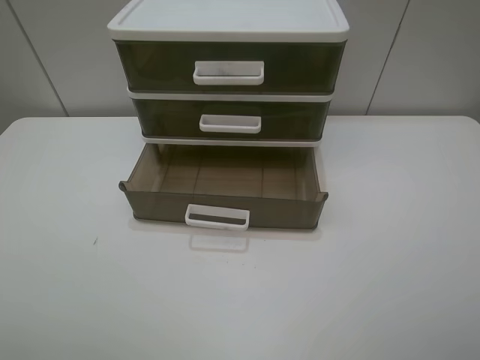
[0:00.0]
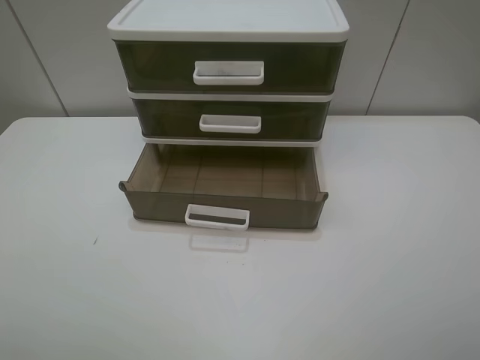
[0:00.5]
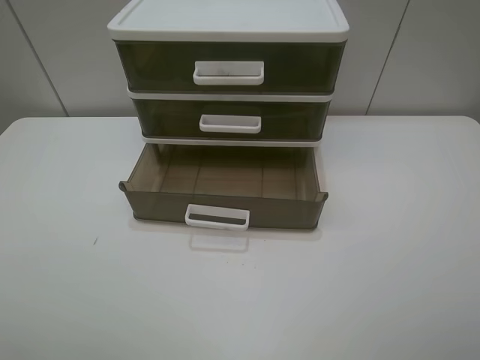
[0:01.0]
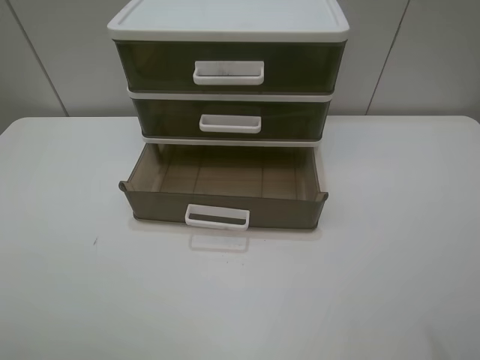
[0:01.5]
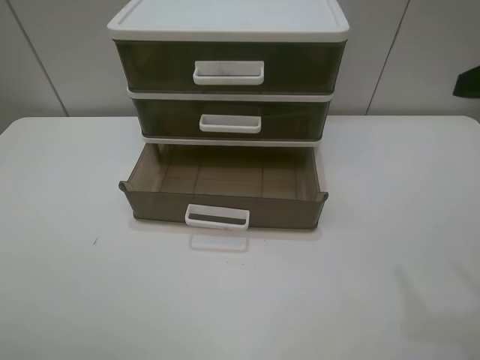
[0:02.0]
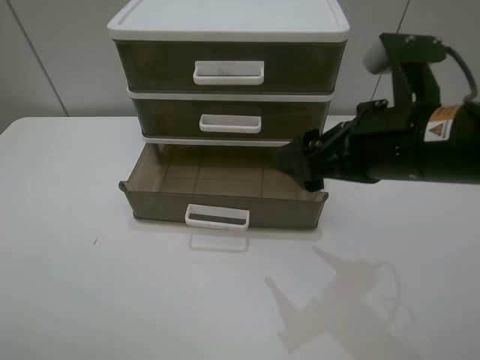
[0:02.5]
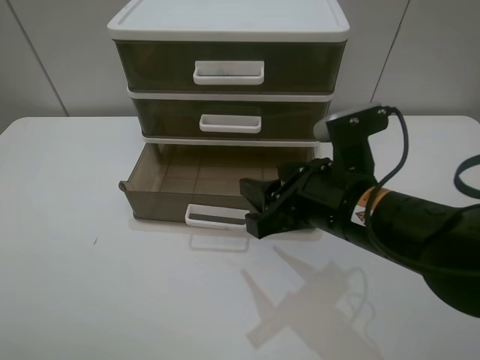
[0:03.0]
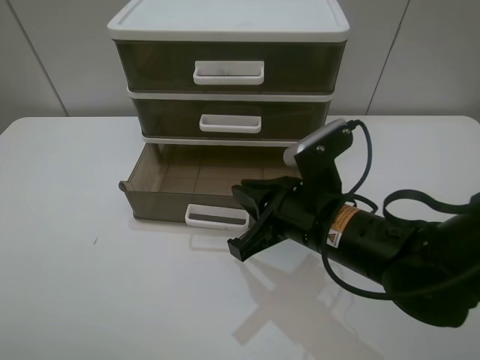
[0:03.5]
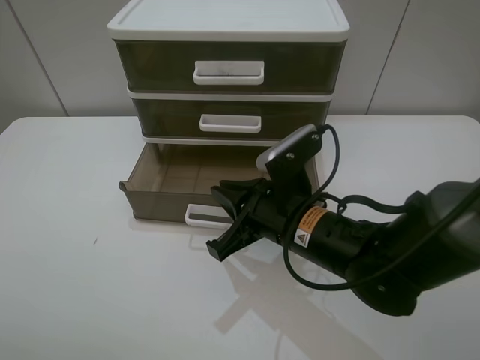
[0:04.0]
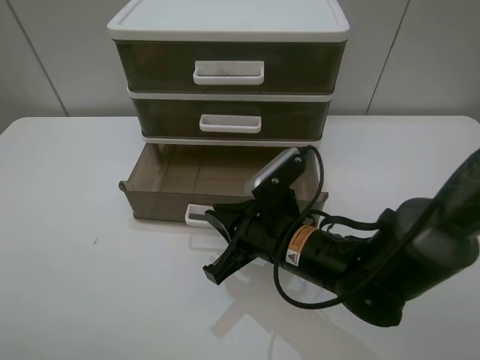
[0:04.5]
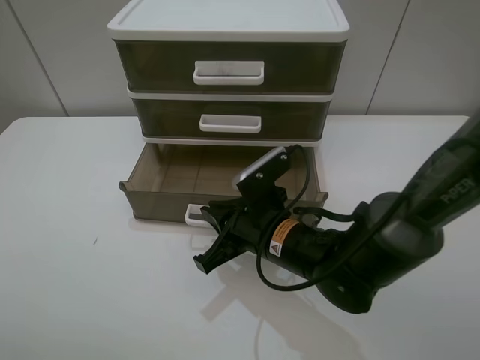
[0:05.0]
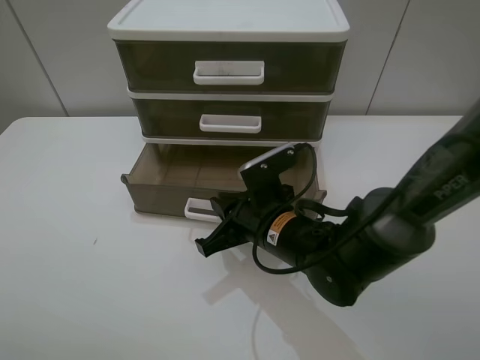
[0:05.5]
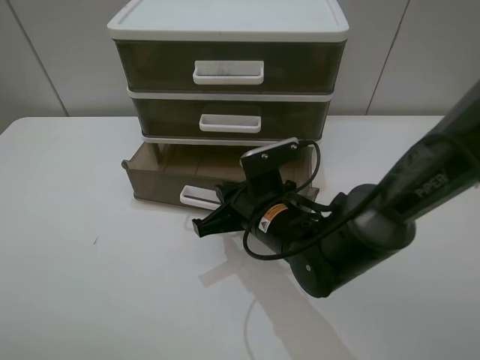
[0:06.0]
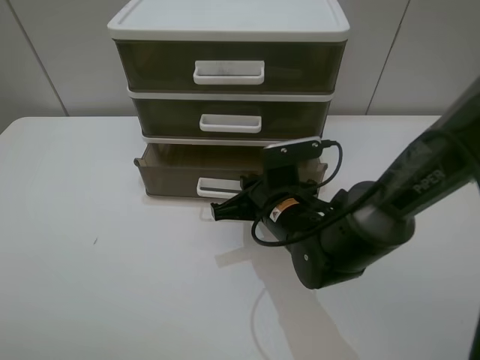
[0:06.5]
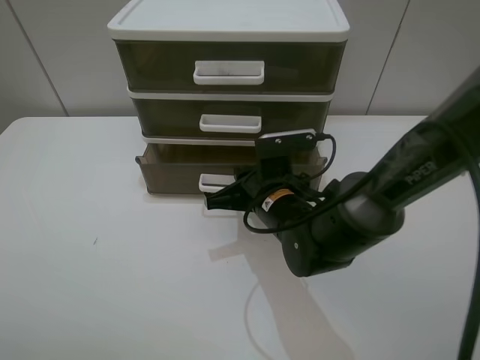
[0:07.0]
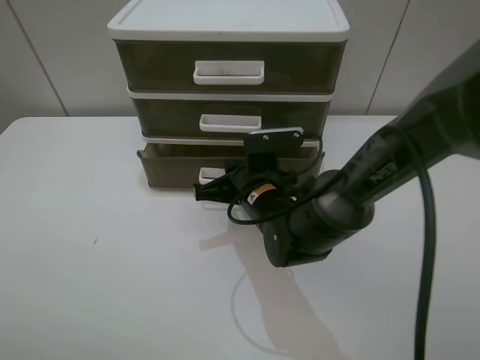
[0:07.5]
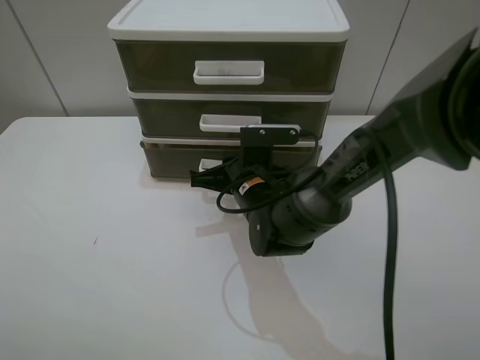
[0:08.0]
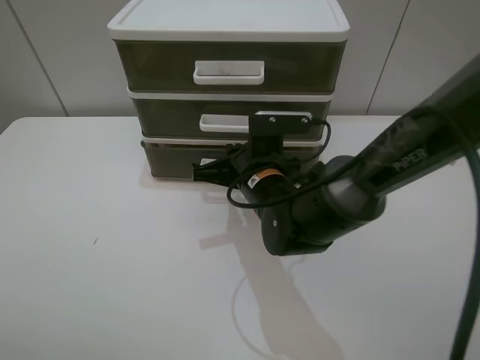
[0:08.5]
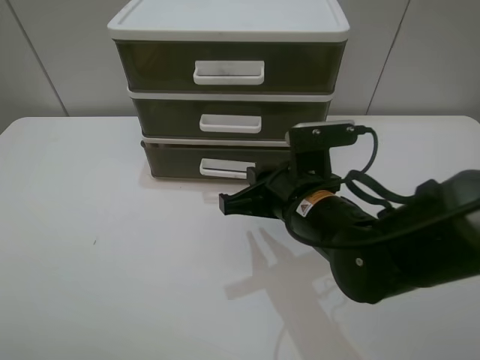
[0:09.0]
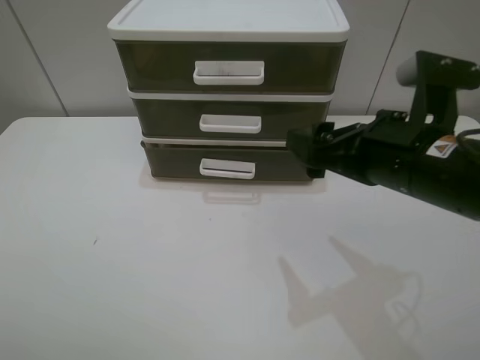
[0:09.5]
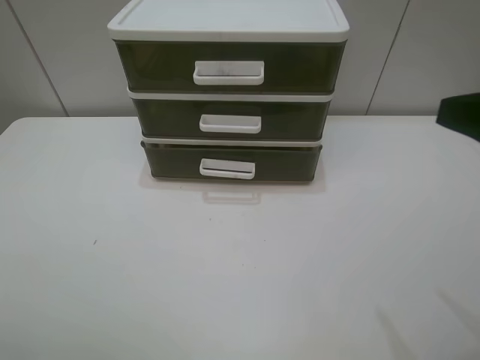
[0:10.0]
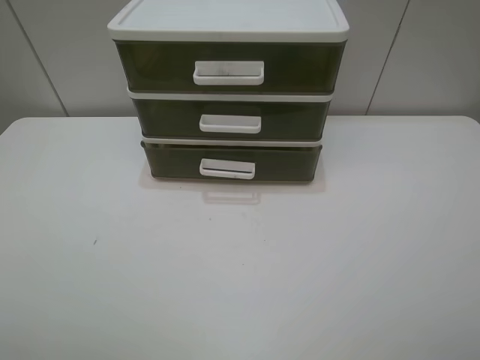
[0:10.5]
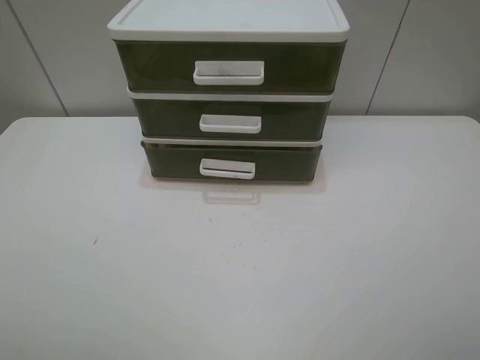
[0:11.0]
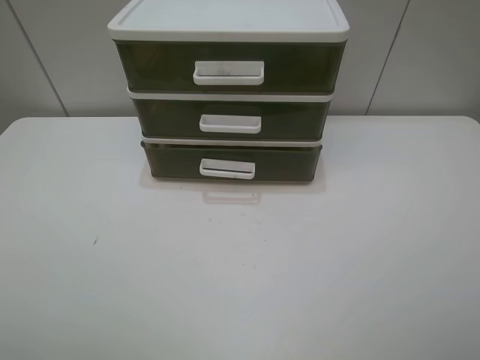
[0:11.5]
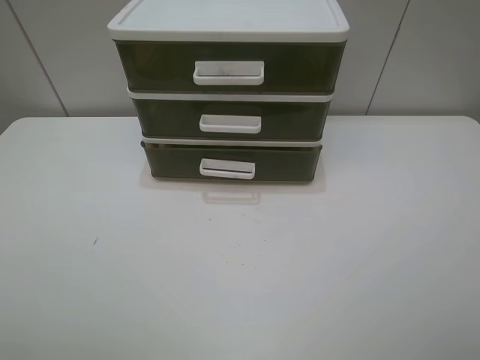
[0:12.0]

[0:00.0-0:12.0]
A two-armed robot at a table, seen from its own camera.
Task of the whole recording: close the bottom drawer.
Step, 0:00.0 to 0:05.0: Use the right gripper to contact the bottom layer of the storage cabinet.
Step, 0:05.5 to 0:08.0: Push the bottom drawer closed.
0:02.0 to 0:04.0: The right gripper is displaced to the left and downward by roughly 30 cm, and closes.
0:04.0 to 0:06.0: The right gripper shifts by some 5 cm.
0:06.0 to 0:08.0: The right gripper goes roughly 5 cm forward.
0:08.0 to 0:10.0: The right gripper heads to the right, upward and backward, covering approximately 40 cm, and opens up.
0:10.0 to 0:12.0: The right gripper is displaced backward by roughly 10 cm.
